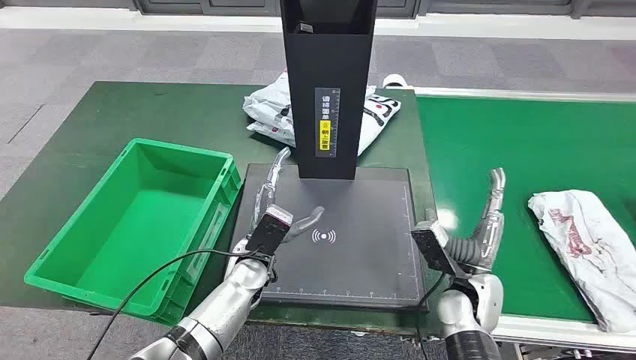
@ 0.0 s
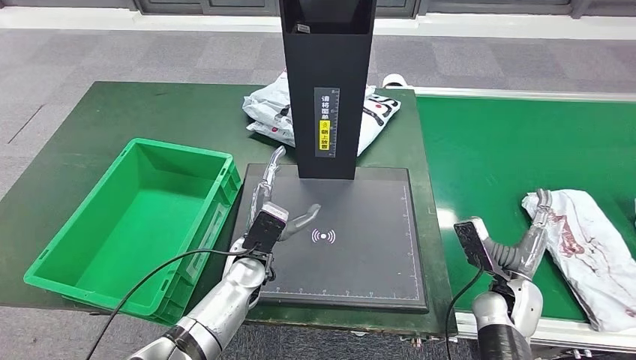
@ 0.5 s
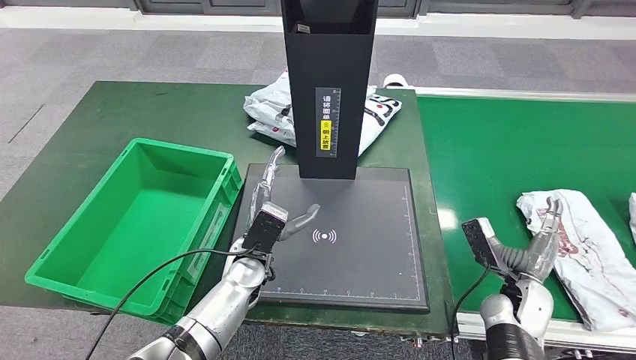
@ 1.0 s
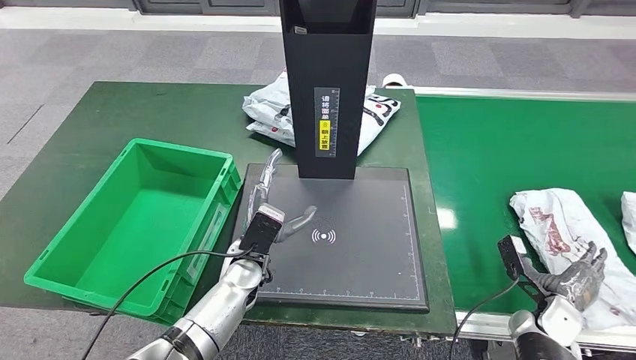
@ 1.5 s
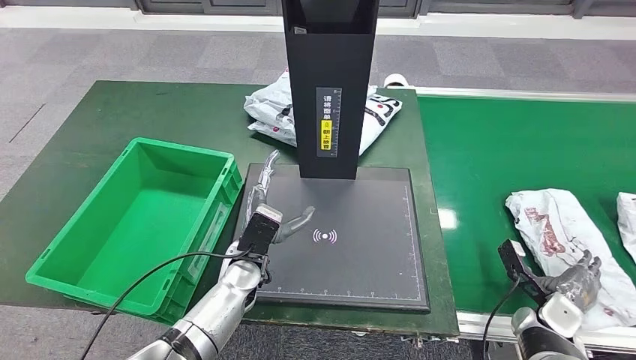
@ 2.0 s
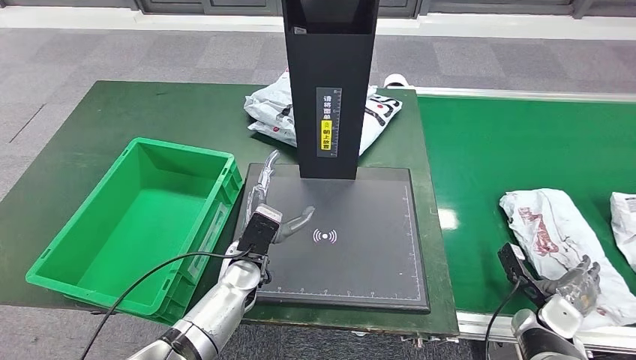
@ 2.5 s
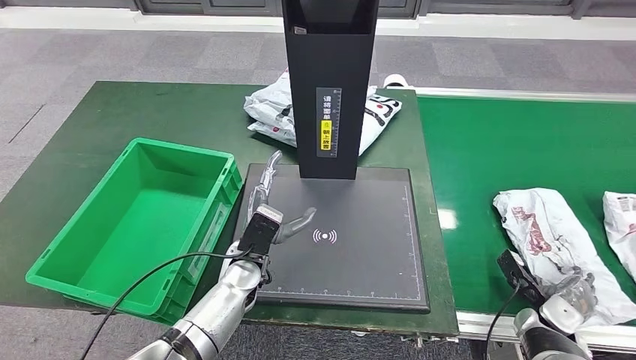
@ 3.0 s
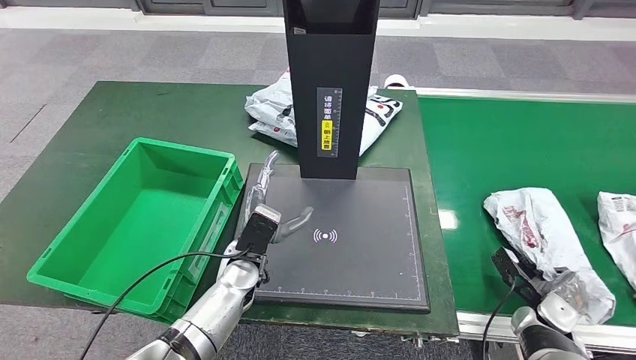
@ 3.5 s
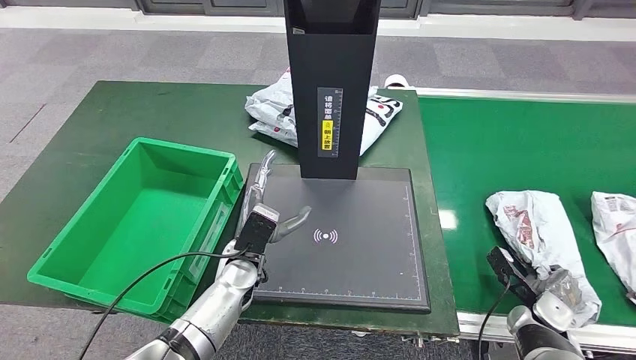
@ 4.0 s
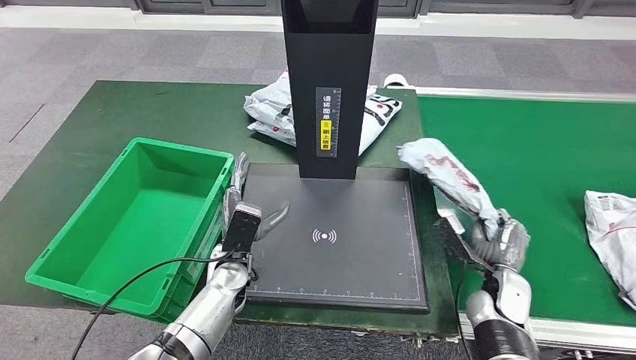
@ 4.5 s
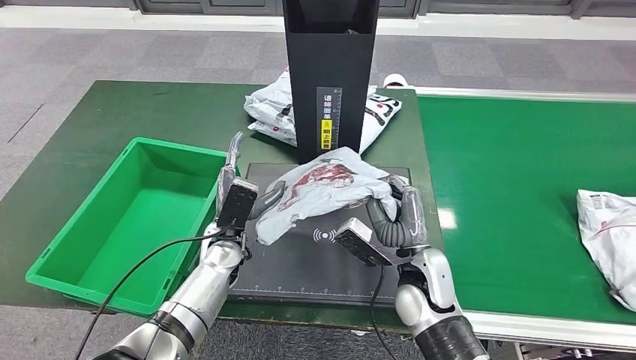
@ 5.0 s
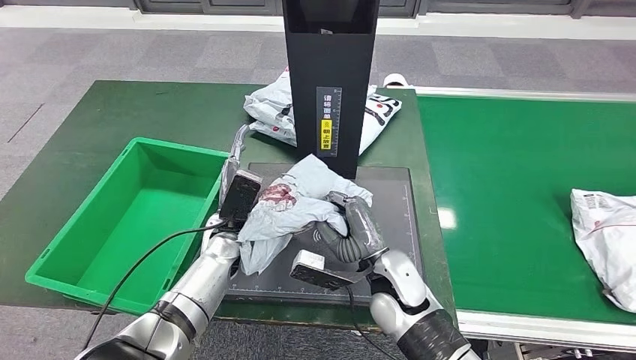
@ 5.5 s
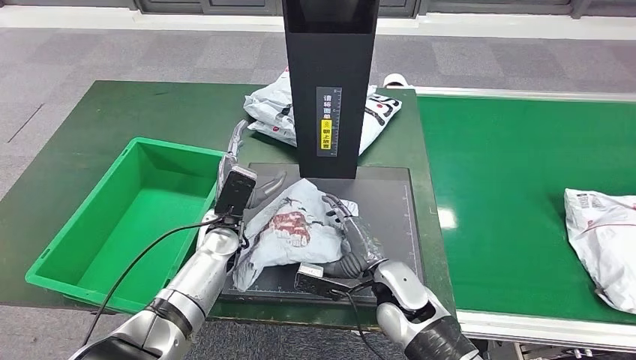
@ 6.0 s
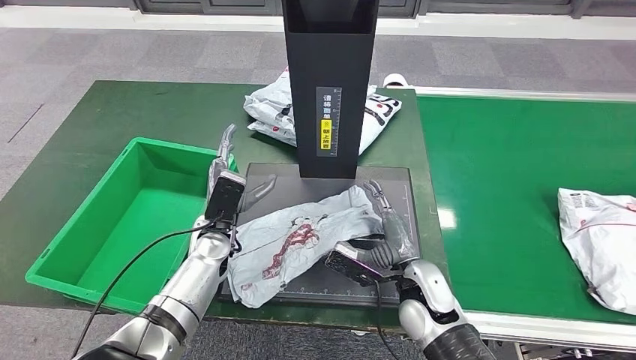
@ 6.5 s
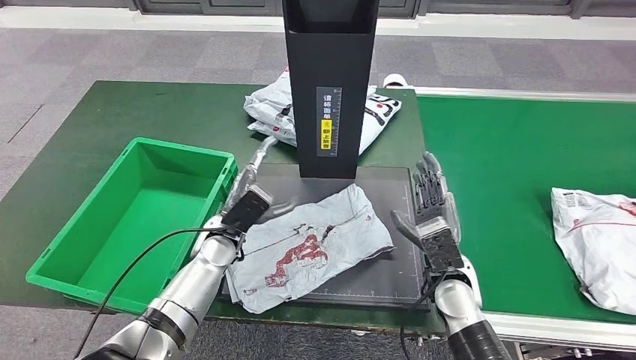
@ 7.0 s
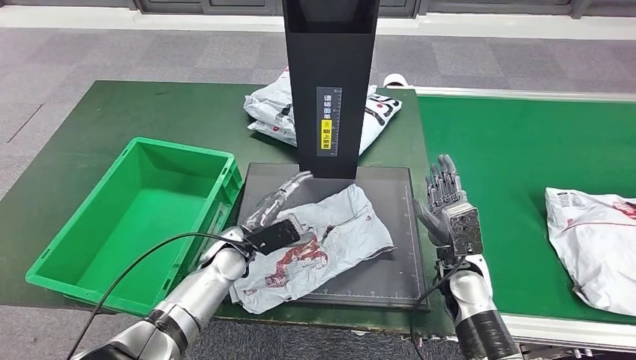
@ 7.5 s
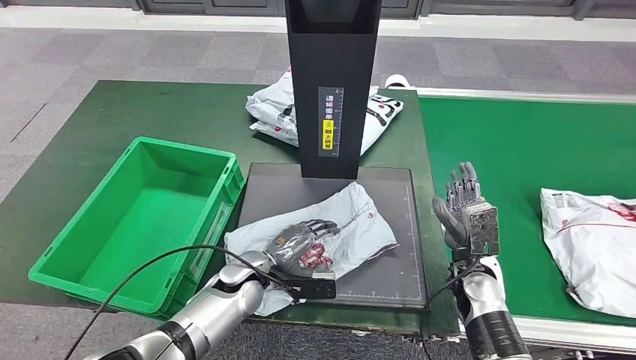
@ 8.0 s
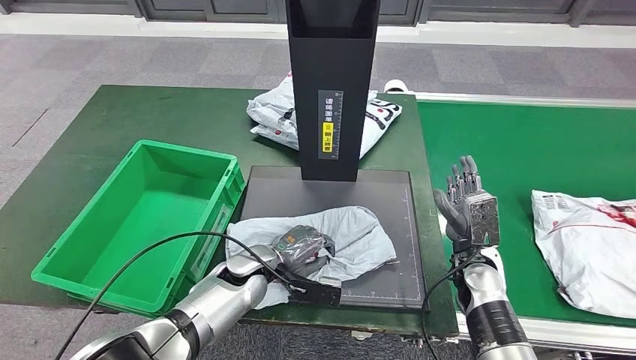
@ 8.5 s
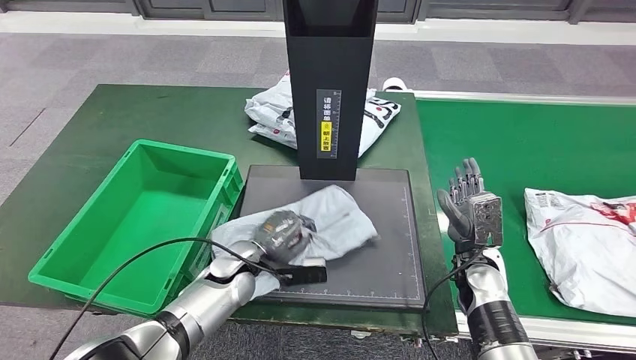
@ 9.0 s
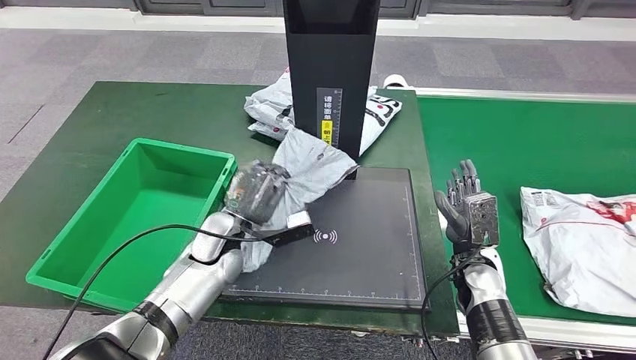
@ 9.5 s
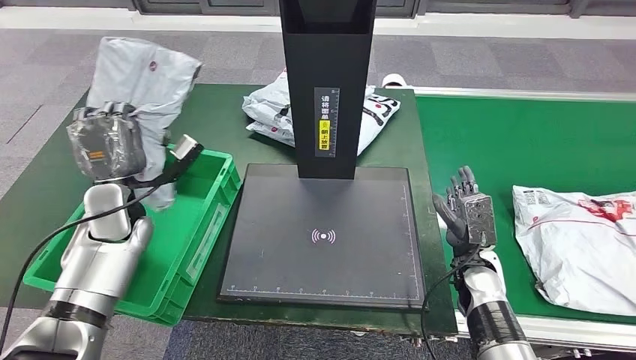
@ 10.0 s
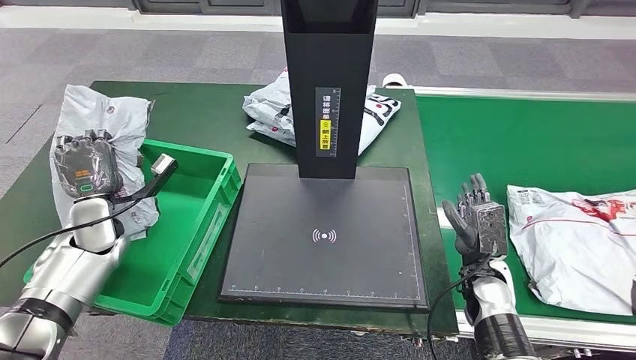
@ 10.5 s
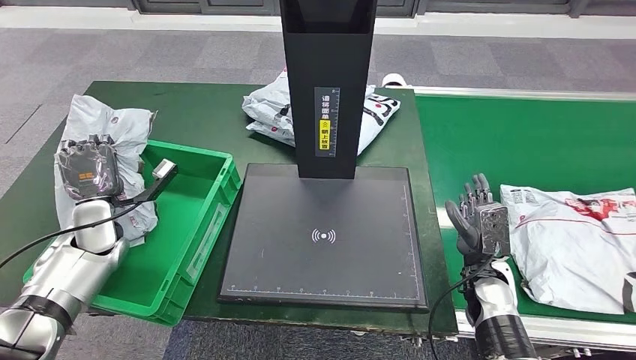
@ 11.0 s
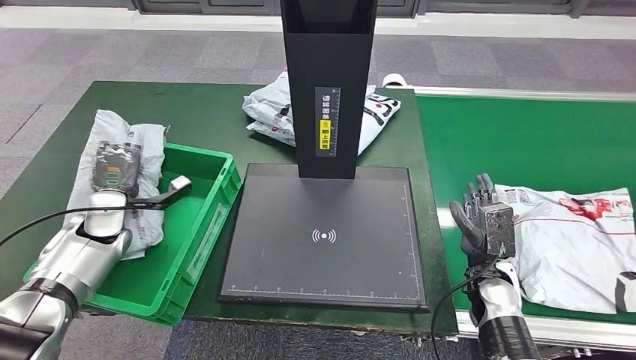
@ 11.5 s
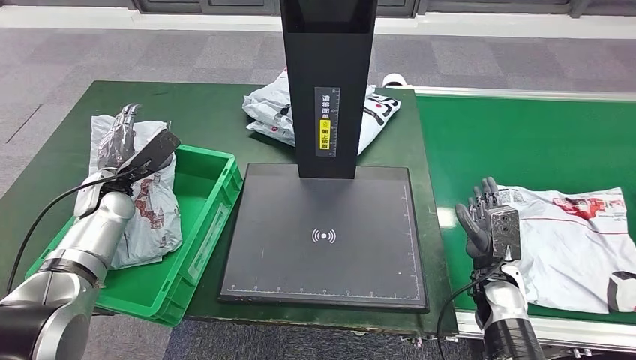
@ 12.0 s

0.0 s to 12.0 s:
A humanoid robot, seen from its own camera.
Step, 0.0 to 4.0 s: Take the parcel off the conveyor belt.
Step, 4.5 to 7.0 s: Place the parcel onto the inbound machine.
Step, 7.5 to 9.5 s: Pick up the parcel from the inbound machine.
2.0 to 4.0 s: The hands stay close to where they were, moving slightly.

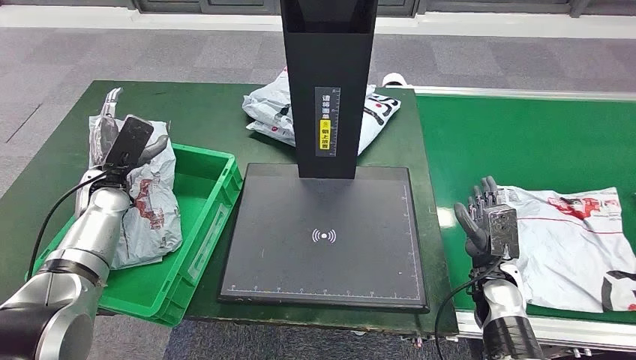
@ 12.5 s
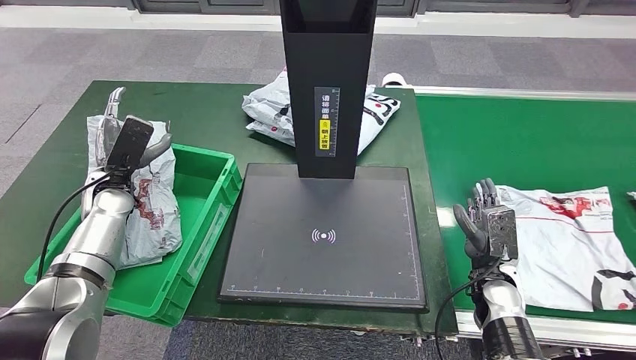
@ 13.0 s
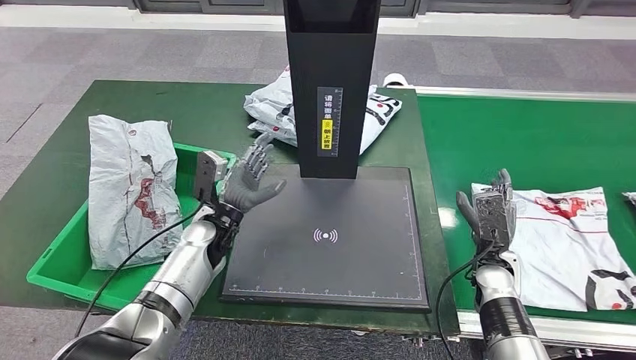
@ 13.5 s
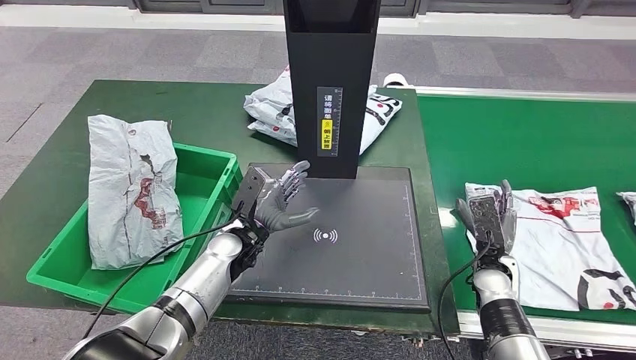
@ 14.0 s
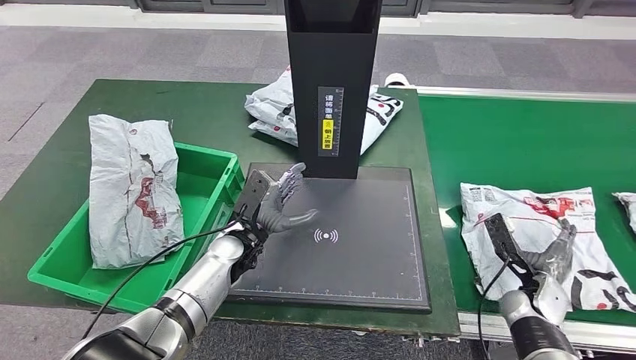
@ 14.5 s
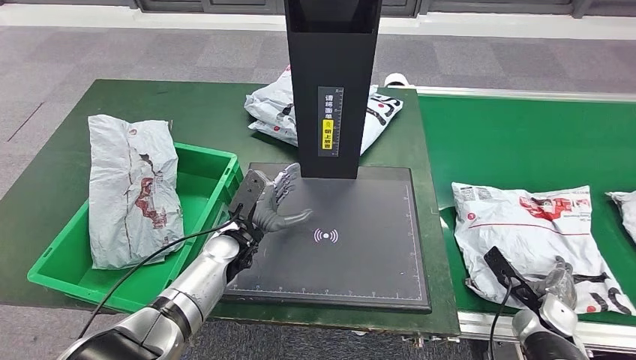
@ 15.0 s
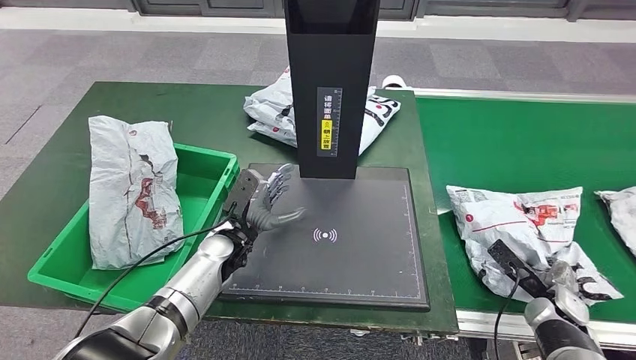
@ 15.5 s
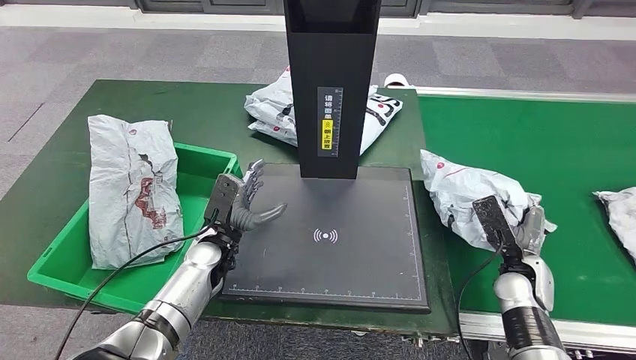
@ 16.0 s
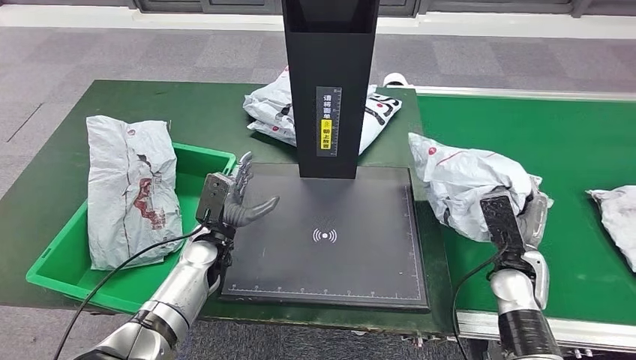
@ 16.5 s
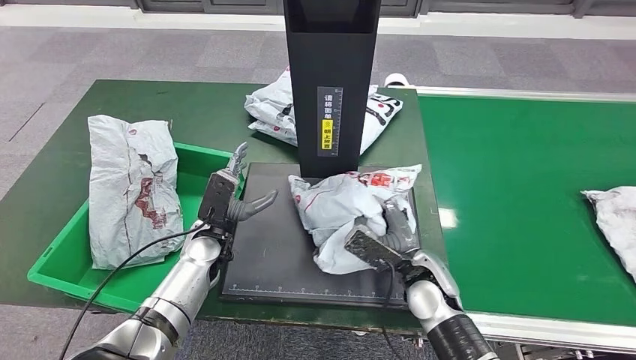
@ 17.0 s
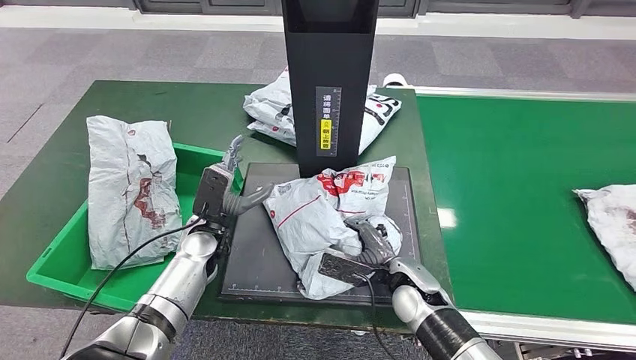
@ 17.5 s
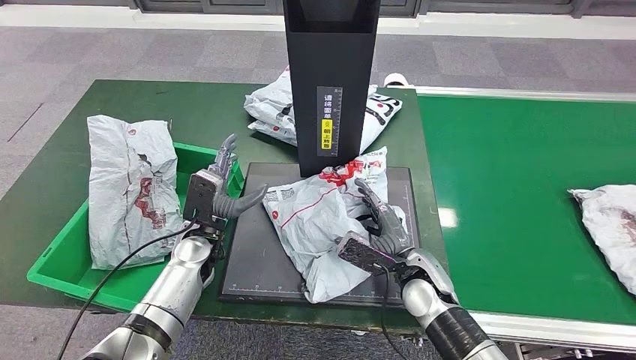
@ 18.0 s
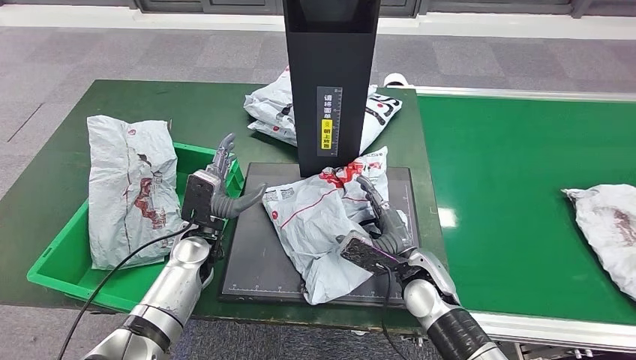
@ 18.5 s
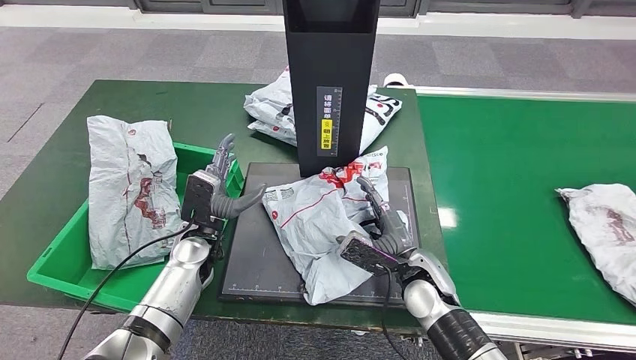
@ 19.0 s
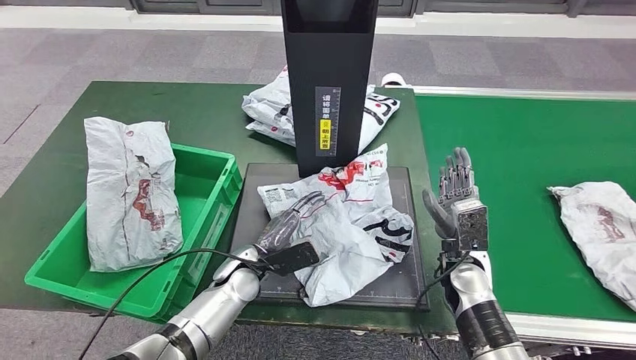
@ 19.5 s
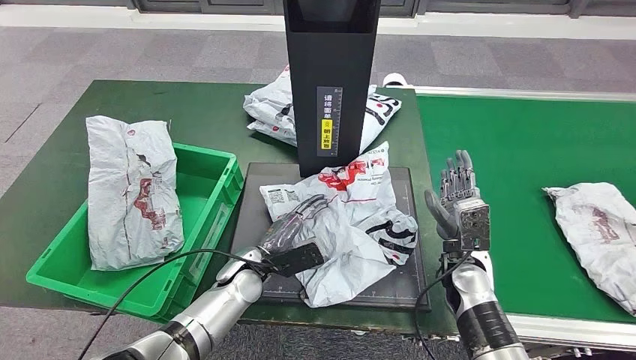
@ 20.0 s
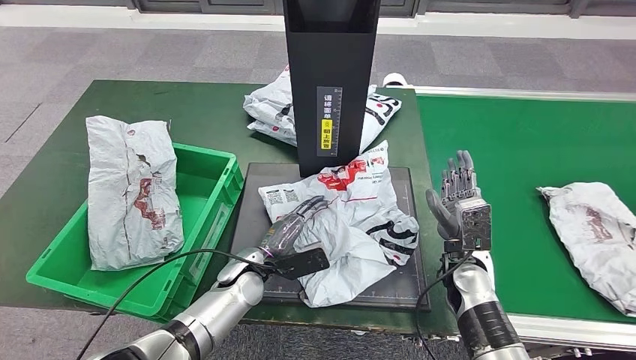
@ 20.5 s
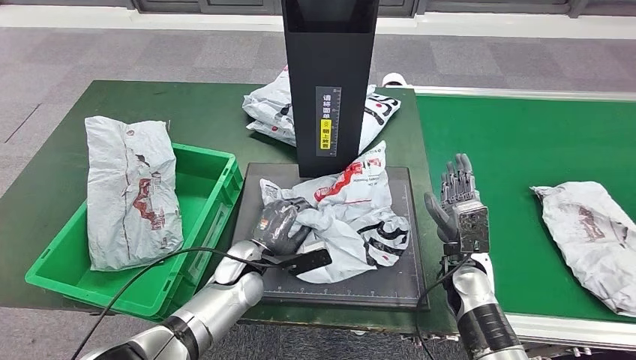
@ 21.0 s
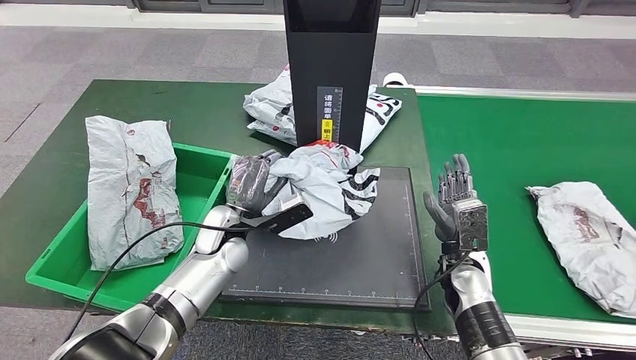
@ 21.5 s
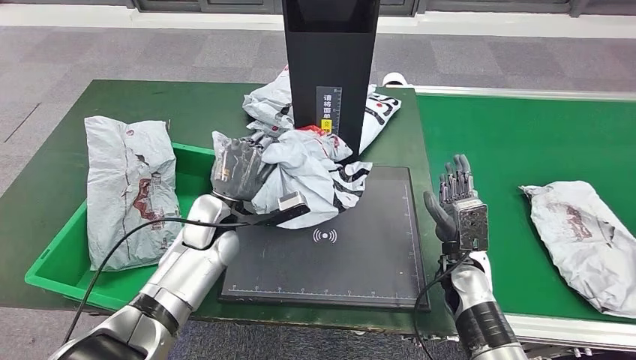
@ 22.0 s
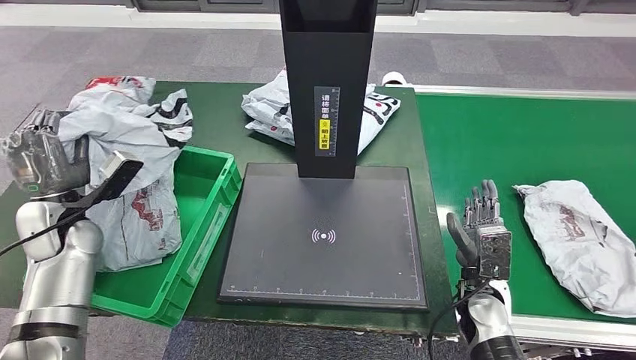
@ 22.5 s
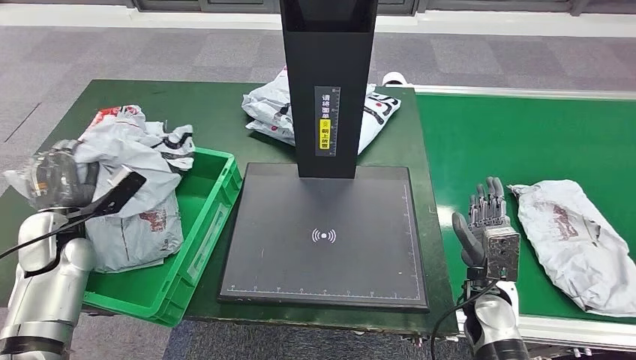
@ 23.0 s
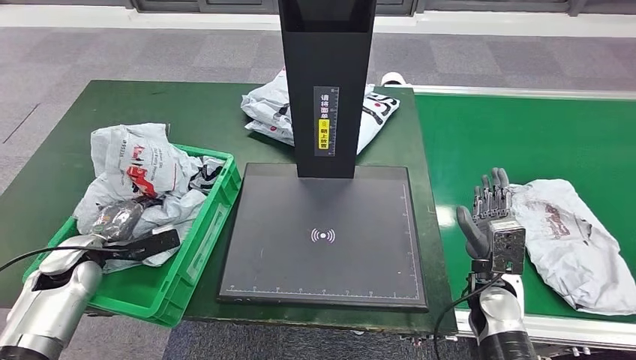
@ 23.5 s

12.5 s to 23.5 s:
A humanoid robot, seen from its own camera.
Step, 13.0 to 16.5 s: Pick up the parcel from the conveyor belt.
Step, 17.0 to 18.5 s: Place the parcel onto the inbound machine.
Step, 19.0 to 22.0 s: Pick up the parcel from the inbound machine.
14.5 to 16.0 s: The right hand ends up about 5 cm from where it was. Meanwhile the left hand ends up roughly 5 cm from where it was.
